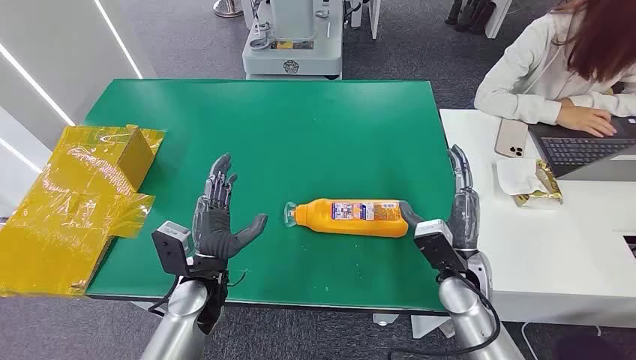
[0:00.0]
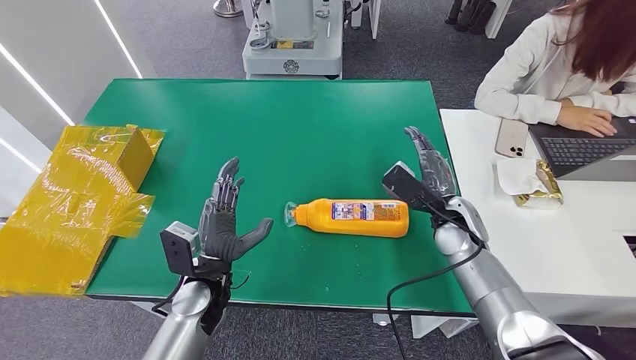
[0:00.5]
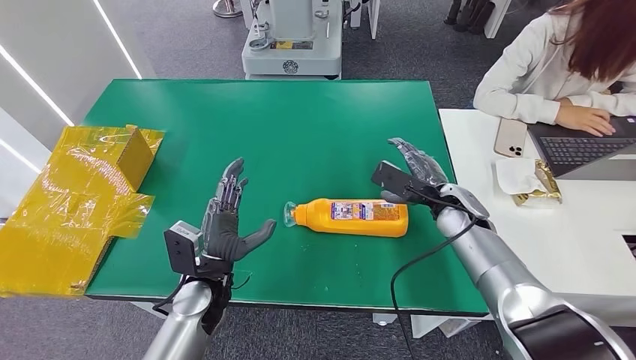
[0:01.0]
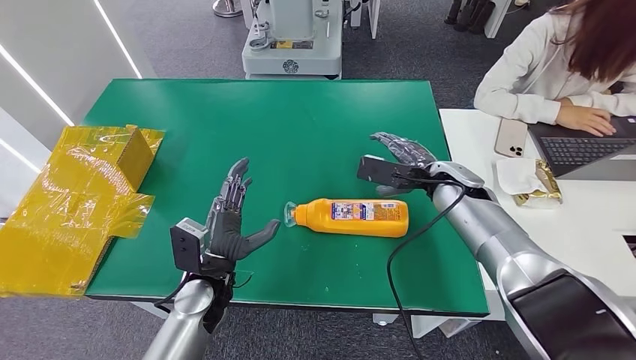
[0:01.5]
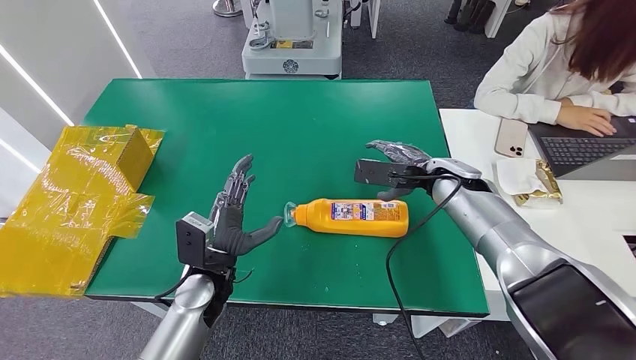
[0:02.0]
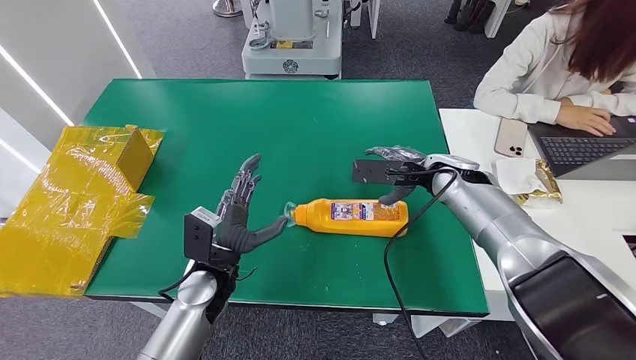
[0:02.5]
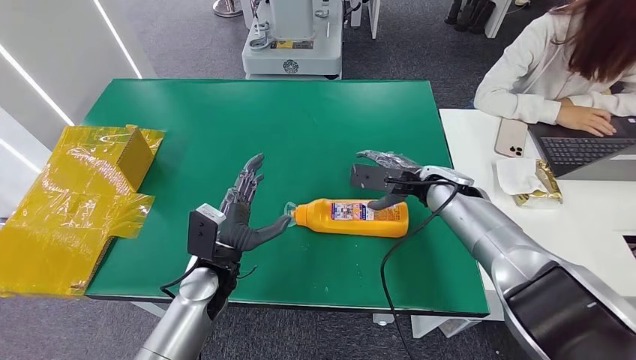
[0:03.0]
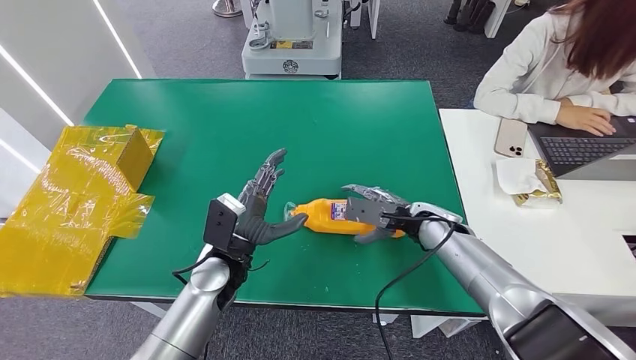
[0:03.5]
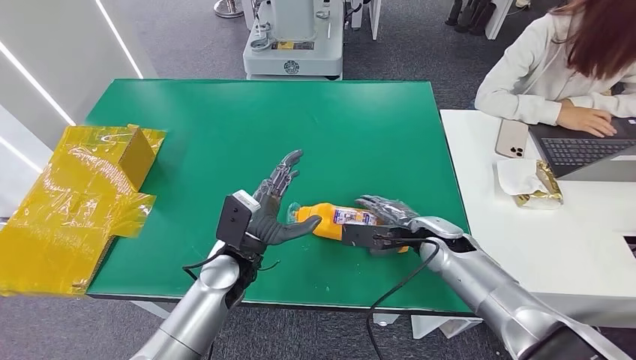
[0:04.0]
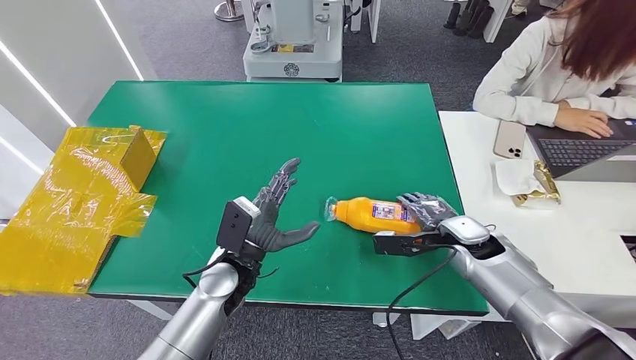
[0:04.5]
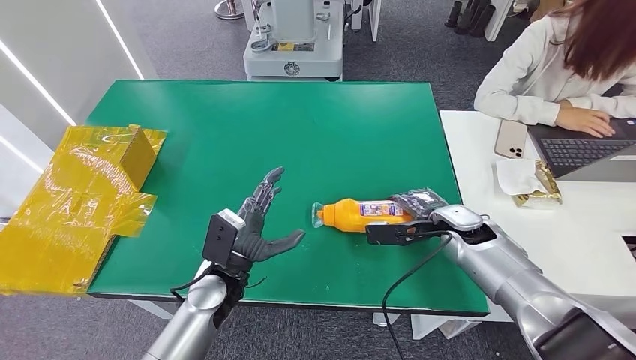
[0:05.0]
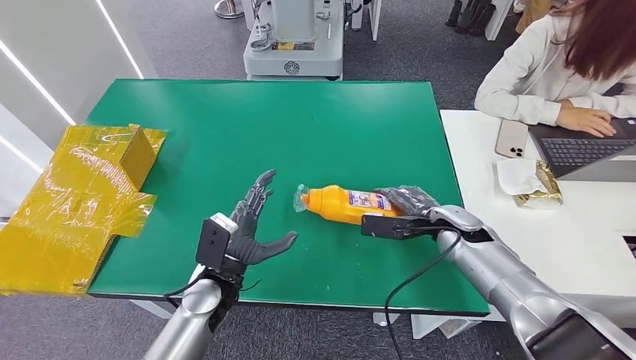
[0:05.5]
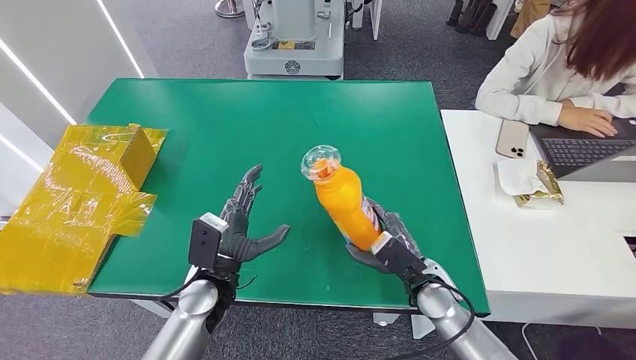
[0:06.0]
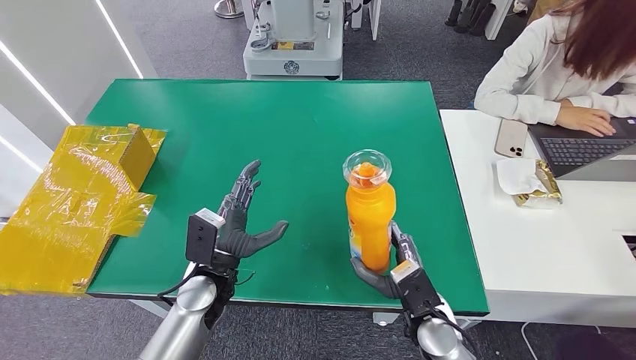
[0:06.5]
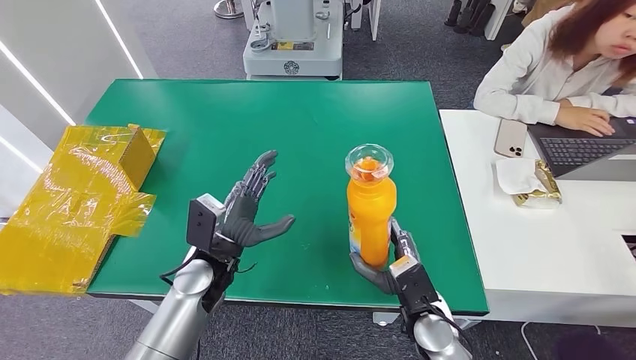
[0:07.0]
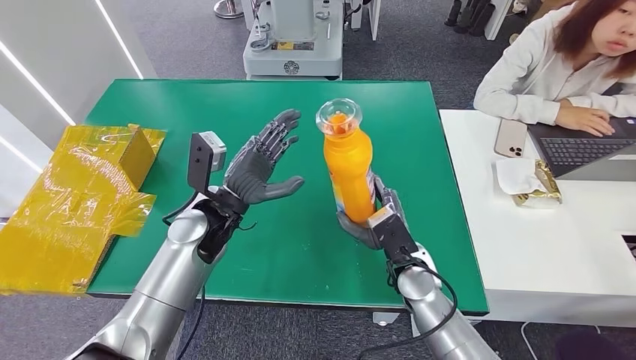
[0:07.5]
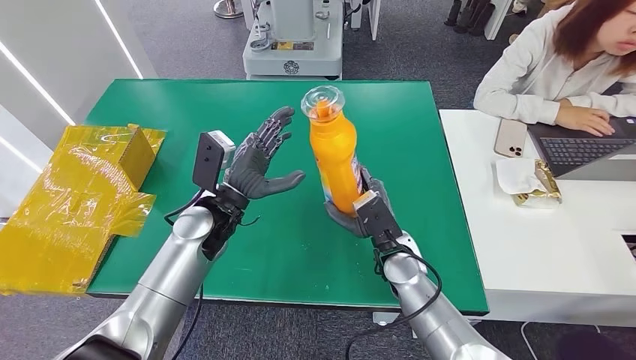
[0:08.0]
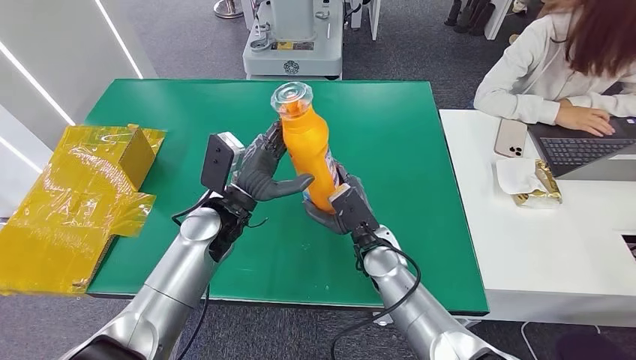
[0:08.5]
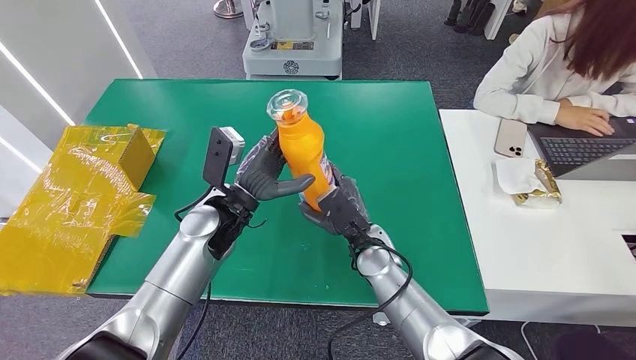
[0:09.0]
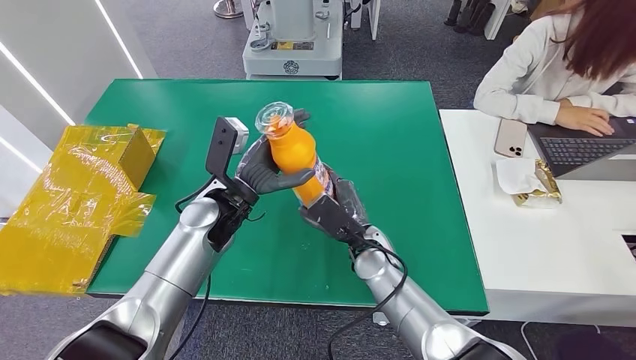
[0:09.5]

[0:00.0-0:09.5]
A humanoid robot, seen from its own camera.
Step, 0:00.0 to 0:06.0: Pick up the bottle from the table.
0:02.0 to 0:04.0: The right hand is displaced downward and backward by some 10 cm.
0:04.0 to 0:05.5: The left hand moves roughly 5 cm.
0:07.5 to 0:09.5: The right hand travels to the left by approximately 5 cm.

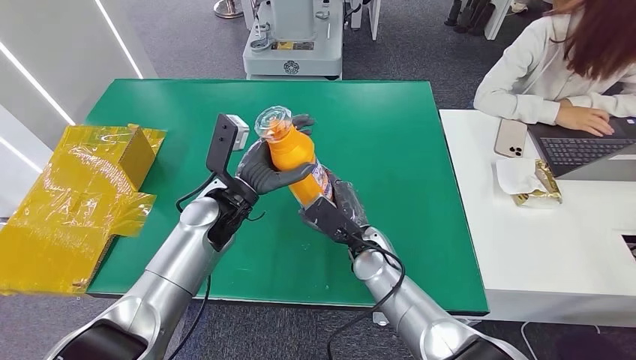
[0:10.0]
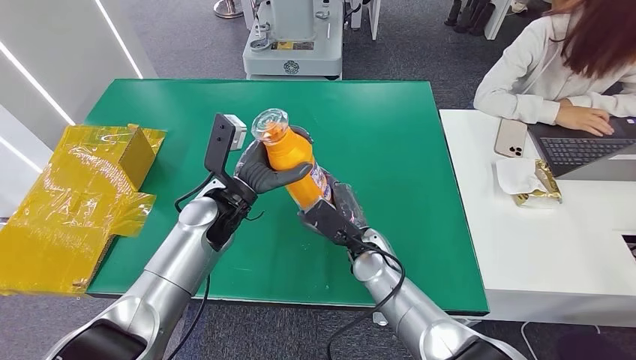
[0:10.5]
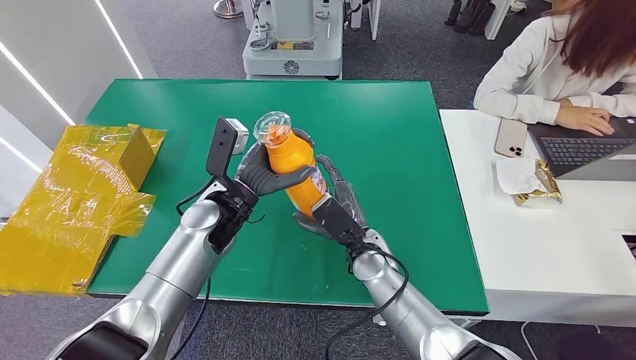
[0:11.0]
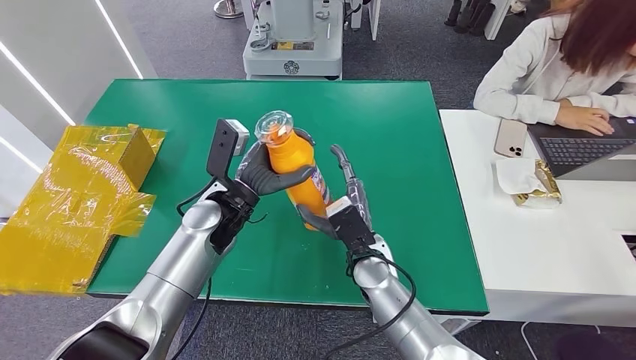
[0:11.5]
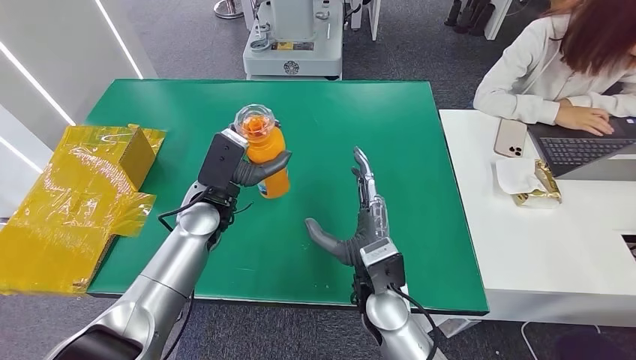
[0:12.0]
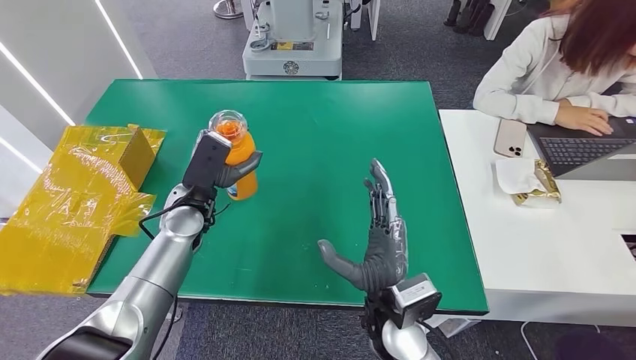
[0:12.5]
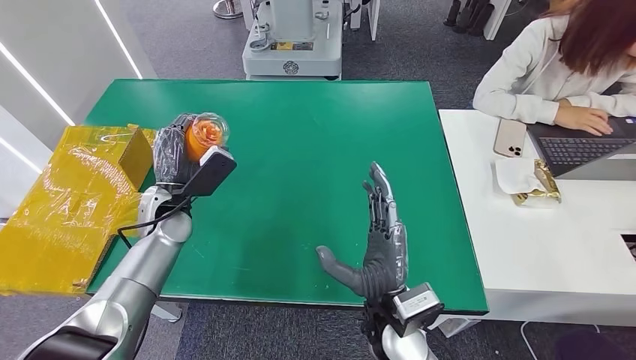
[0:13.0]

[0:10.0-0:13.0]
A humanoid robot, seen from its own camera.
Step, 0:10.0 to 0:13.0: Turn the bottle to the front side.
0:11.5 to 0:13.0: The left hand shifts approximately 10 cm to the left. The right hand travels backward by approximately 10 cm.
